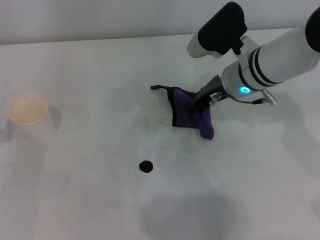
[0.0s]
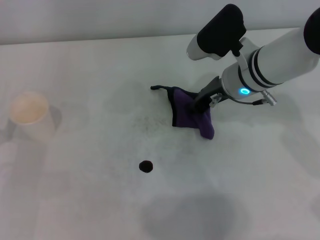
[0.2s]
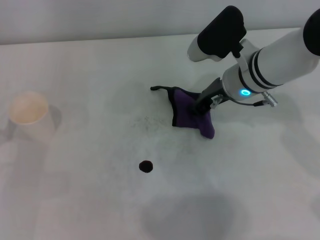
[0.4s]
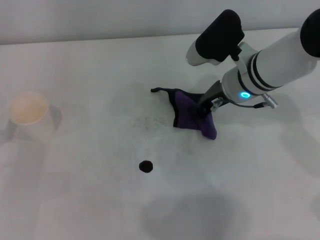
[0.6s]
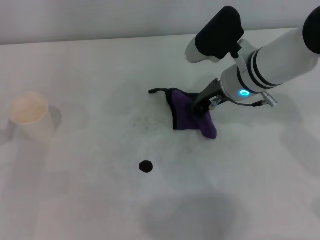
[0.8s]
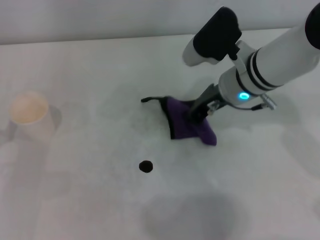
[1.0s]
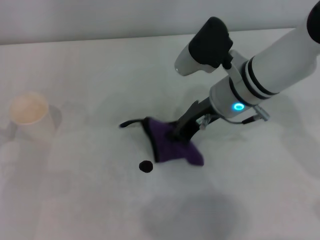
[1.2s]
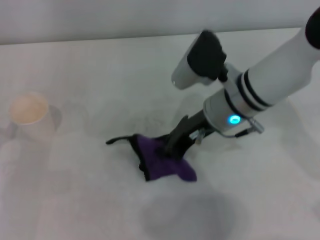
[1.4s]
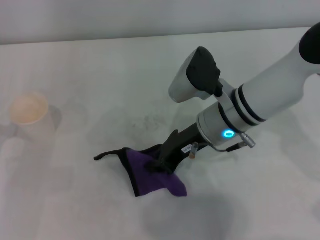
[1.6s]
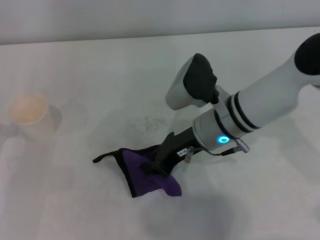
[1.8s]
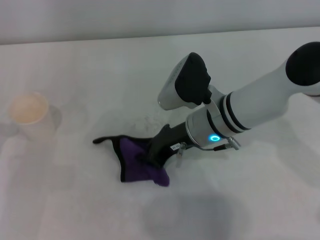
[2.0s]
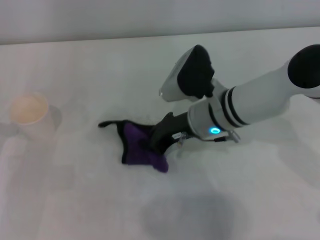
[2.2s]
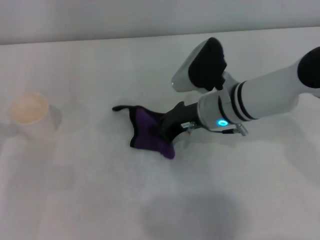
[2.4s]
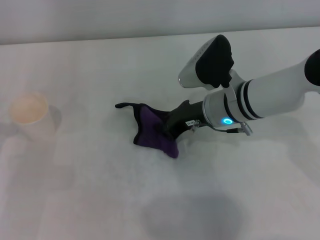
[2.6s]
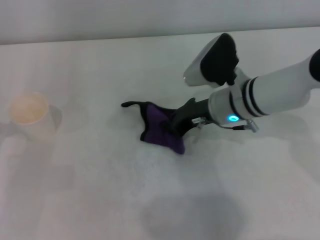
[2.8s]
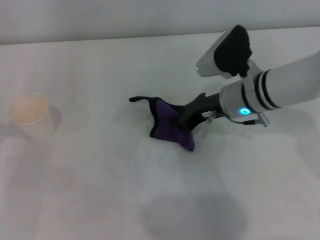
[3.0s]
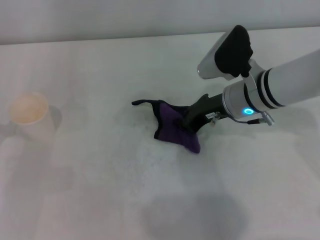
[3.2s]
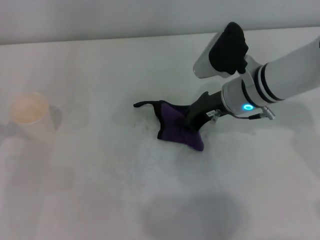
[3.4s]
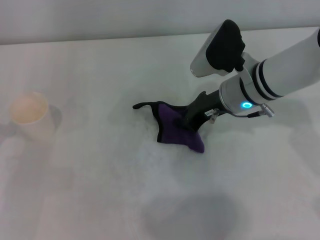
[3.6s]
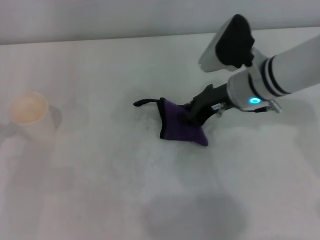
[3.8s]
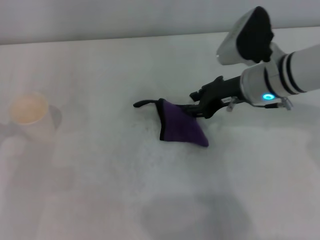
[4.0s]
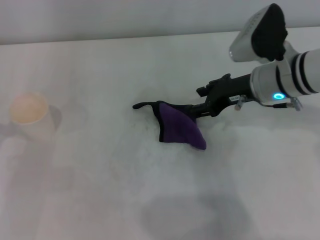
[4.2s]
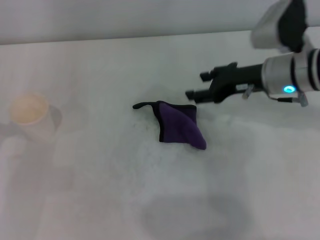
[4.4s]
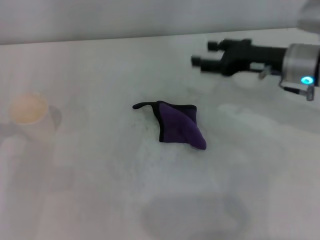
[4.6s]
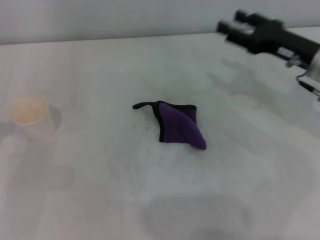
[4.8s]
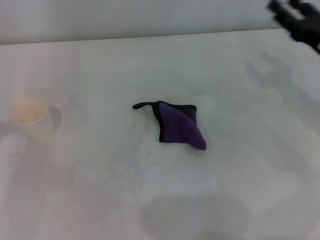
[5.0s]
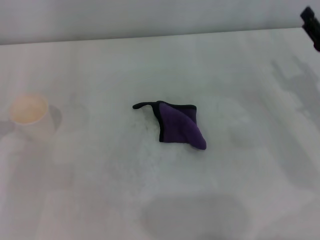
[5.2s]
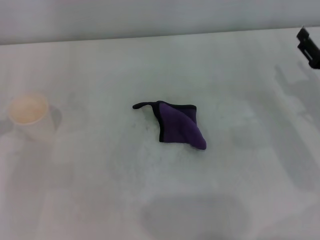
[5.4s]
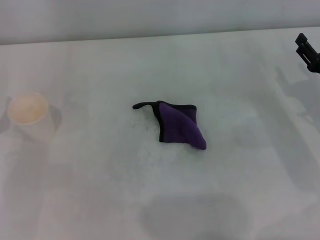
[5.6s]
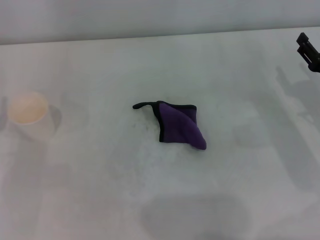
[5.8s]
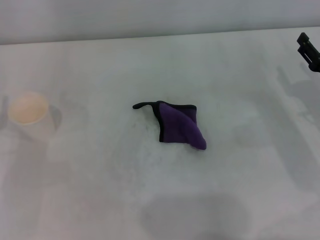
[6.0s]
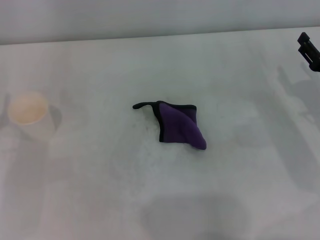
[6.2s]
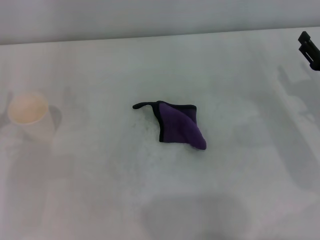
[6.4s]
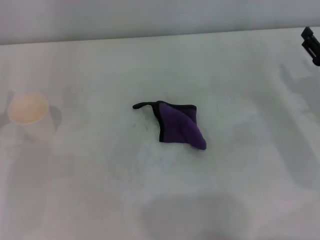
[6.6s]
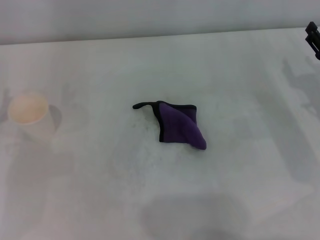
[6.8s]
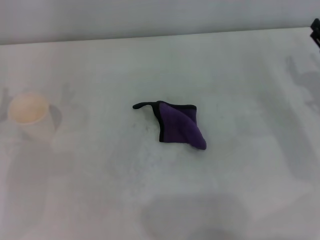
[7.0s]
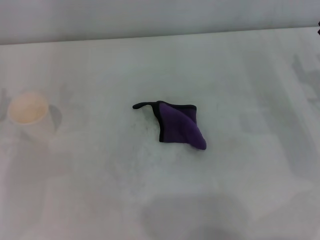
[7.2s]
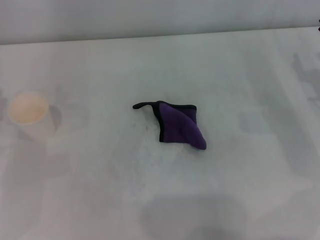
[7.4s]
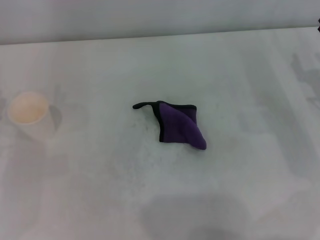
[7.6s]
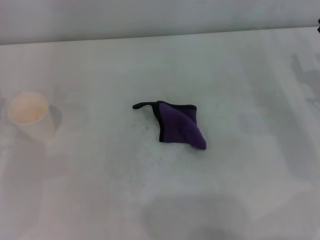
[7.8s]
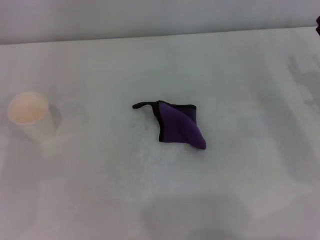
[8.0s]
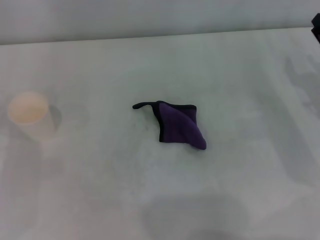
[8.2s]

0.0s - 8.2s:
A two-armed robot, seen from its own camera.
Step, 0.6s - 3.2s: Wipe the stains off the table with the right gripper.
Step, 3.4s - 3.8s: Place the rag on the table with the right gripper.
0.0s - 1.6s: The right gripper shifts roughly 5 cm backward.
1.6s - 3.2s: The right gripper moves about 5 cm.
3.2s - 5.0s: The right gripper travels to the right by some 15 cm, and opens up.
5.0s - 6.6s: The right gripper ends up some 5 cm from where it was.

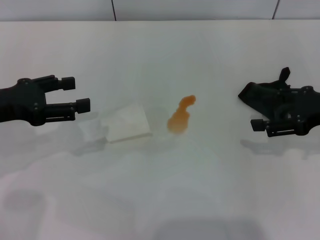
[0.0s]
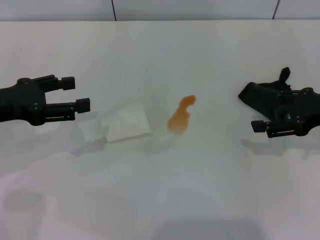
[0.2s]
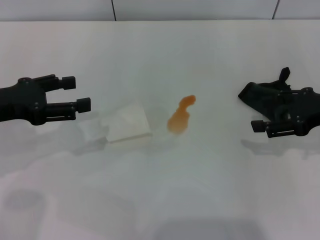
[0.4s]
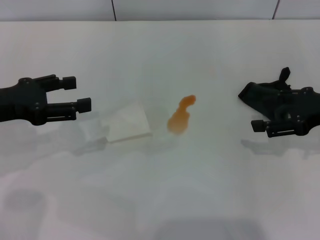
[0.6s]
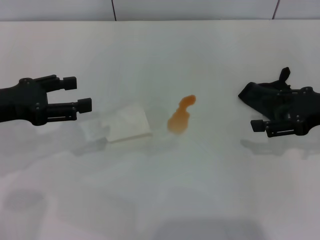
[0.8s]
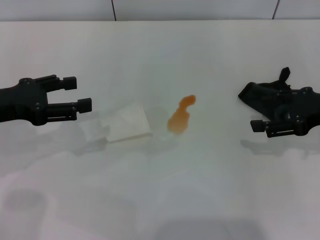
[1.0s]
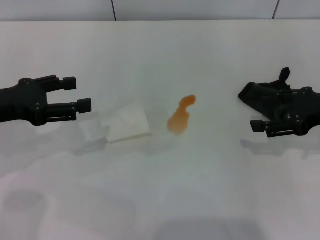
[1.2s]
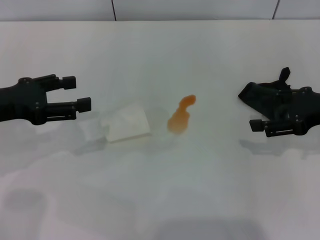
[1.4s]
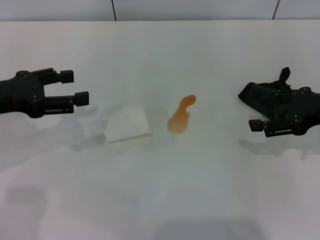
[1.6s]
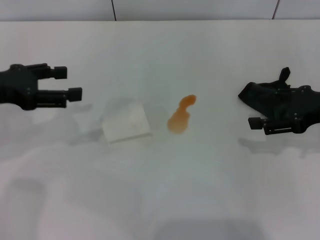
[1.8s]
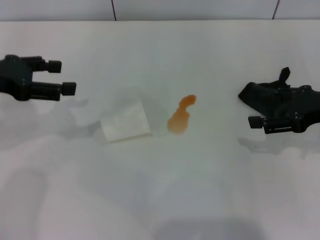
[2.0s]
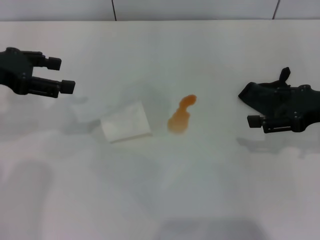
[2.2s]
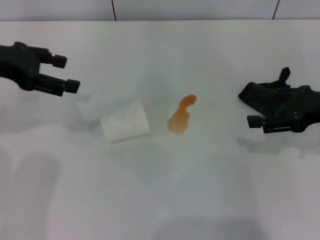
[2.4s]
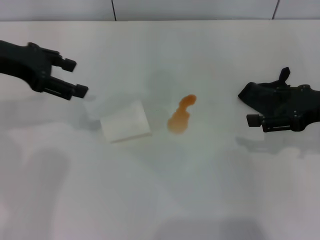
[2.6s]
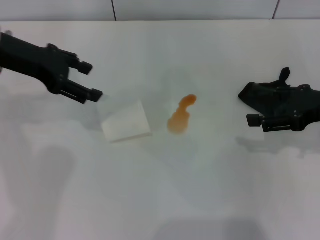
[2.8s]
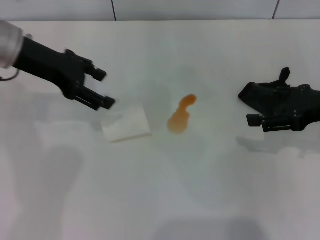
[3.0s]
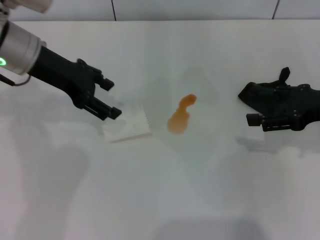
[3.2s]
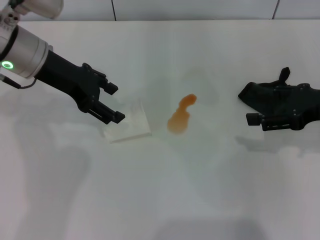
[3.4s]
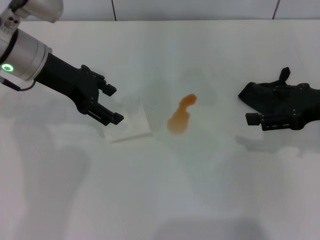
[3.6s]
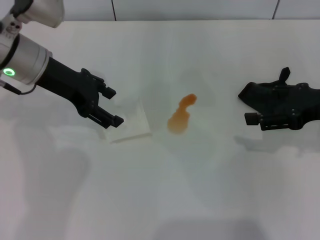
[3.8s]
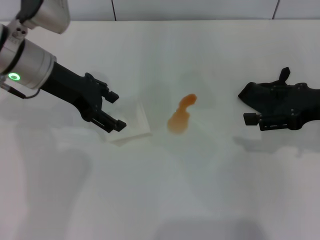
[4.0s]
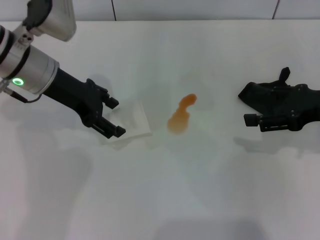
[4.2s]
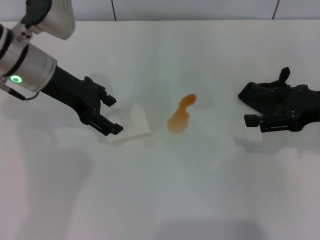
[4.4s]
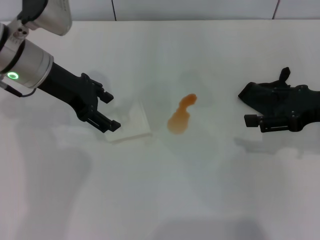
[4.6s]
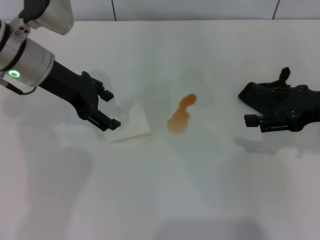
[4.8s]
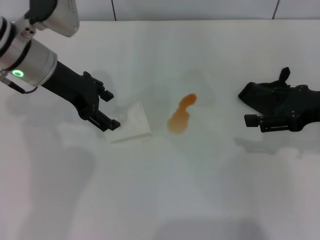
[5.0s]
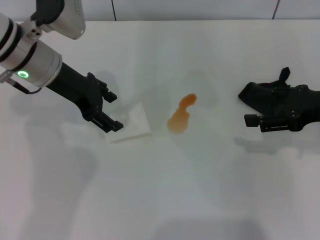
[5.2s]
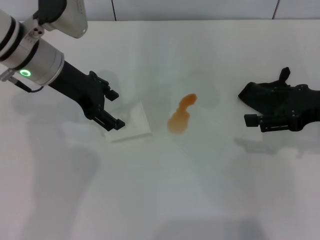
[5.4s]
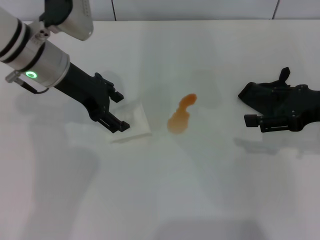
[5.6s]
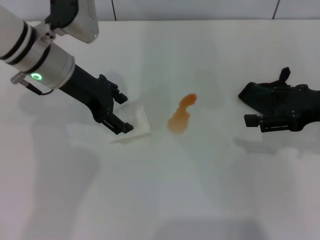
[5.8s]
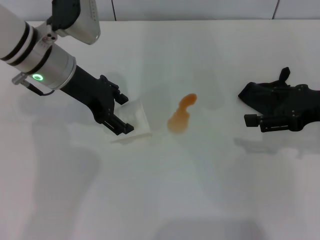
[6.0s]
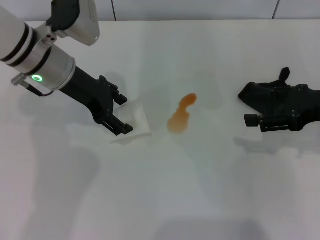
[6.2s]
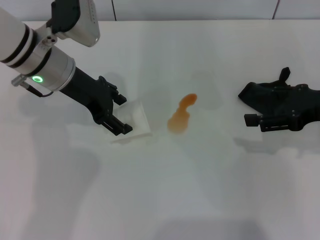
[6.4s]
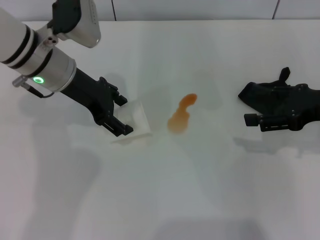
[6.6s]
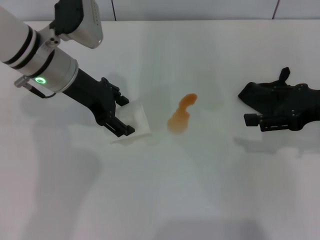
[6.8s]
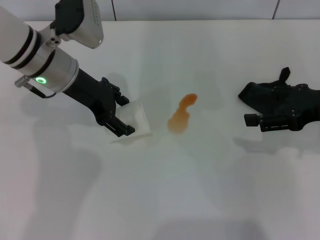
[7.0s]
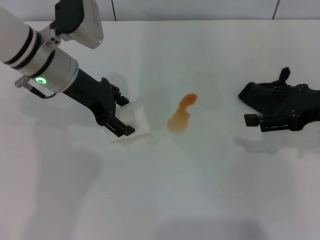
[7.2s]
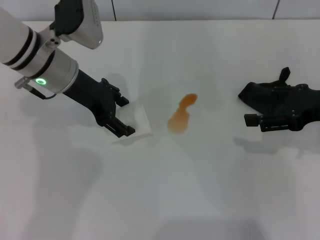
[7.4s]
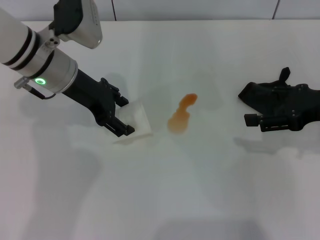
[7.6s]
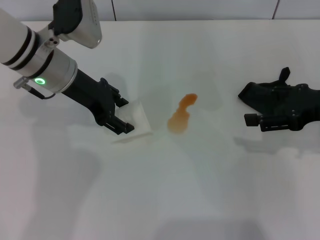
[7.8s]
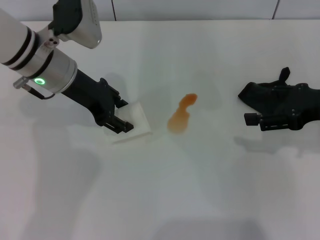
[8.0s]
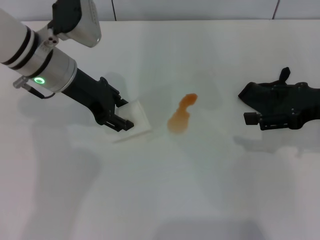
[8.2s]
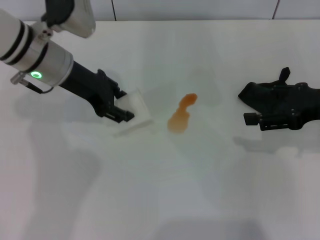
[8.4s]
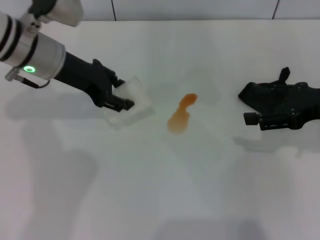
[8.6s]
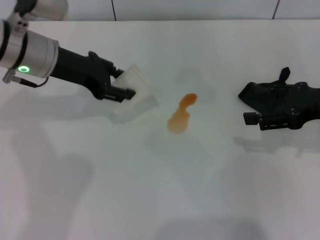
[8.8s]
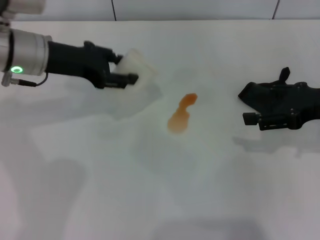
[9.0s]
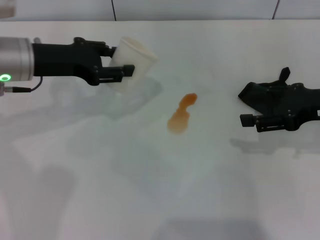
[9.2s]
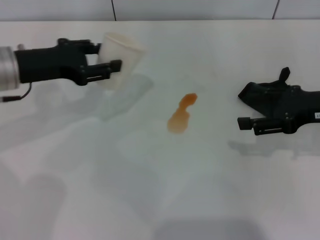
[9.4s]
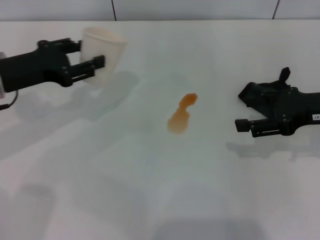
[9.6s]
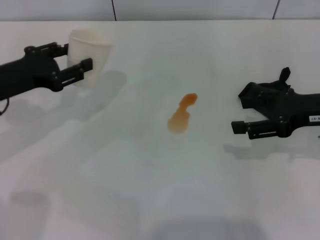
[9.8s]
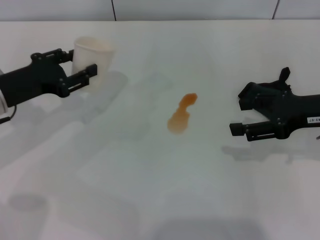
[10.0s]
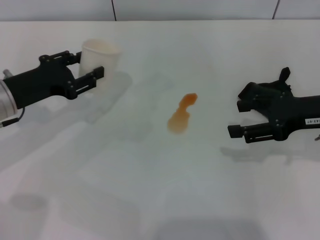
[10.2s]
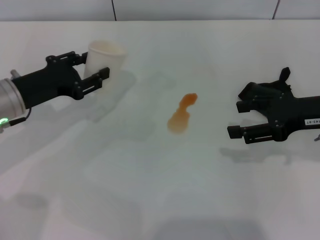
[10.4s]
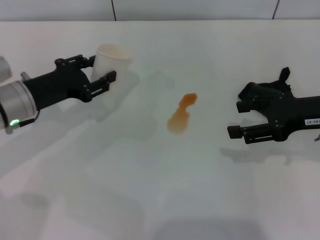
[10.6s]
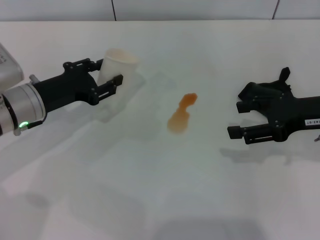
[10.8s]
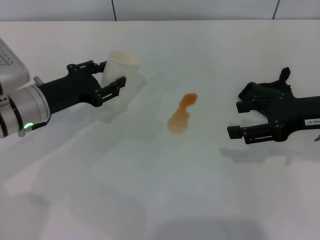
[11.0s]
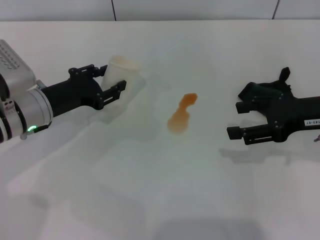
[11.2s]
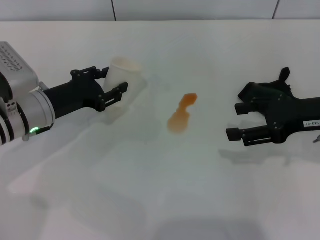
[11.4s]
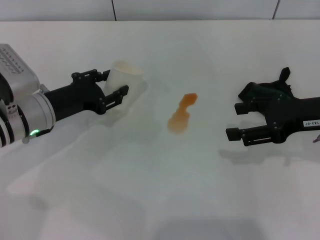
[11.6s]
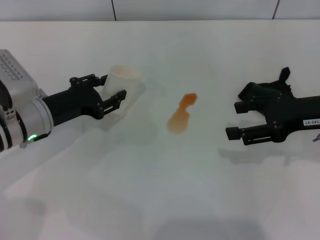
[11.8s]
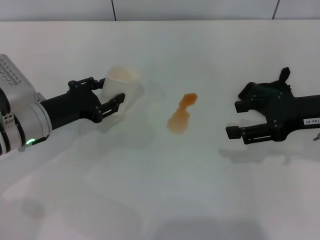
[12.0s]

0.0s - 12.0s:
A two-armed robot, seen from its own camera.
Step, 0.0s - 7.6s: Grasp the paper cup with the left gripper.
0.0s - 1.6s: Neither gripper changes place.
1.6s - 3.0s: The left gripper goes about 10 cm forward and to the right.
3.0s - 4.4s: There are only small adjustments of the grippers.
4.4s - 6.0s: There are only small adjustments of the grippers.
6.0s - 7.6s: Both grippers stay about where they are.
7.6s - 9.0s: The left gripper closes.
9.0s - 10.4s: The left gripper shifts approximately 10 cm downward and backward.
10.4s - 12.0s: The grippers stay close to where they were, moving slightly.

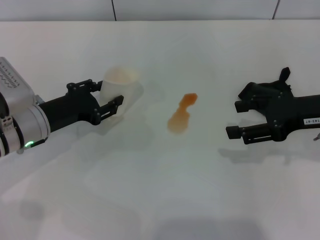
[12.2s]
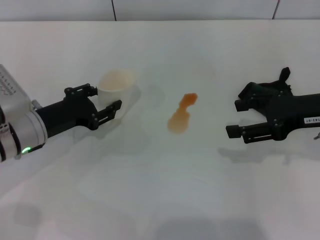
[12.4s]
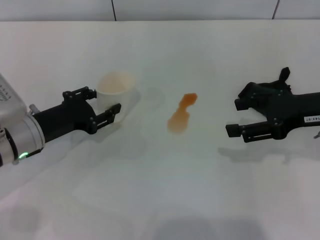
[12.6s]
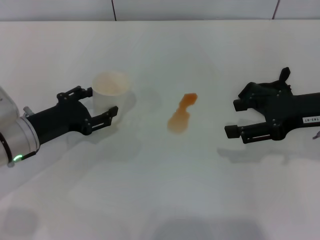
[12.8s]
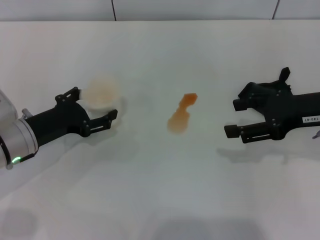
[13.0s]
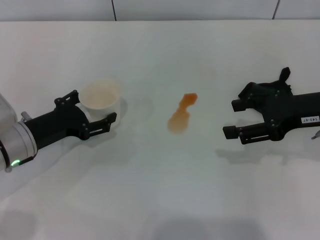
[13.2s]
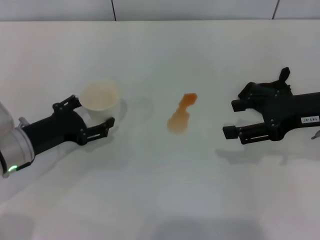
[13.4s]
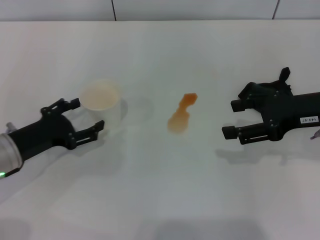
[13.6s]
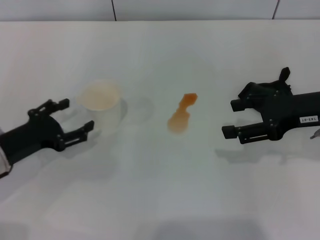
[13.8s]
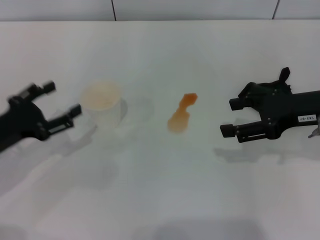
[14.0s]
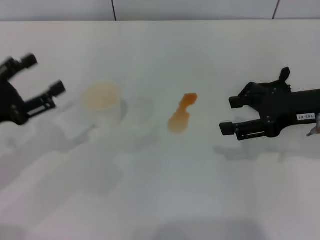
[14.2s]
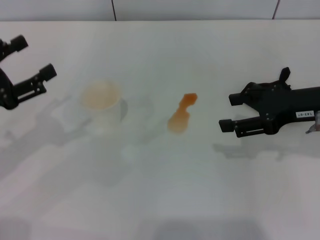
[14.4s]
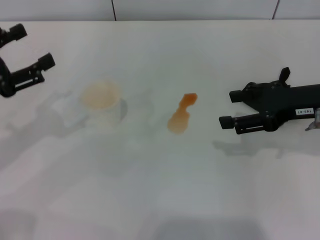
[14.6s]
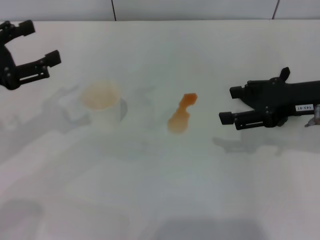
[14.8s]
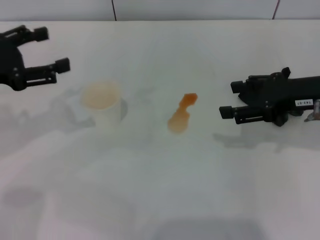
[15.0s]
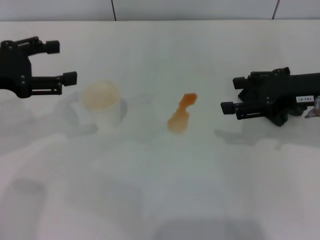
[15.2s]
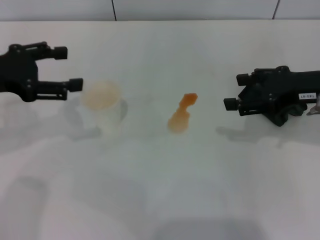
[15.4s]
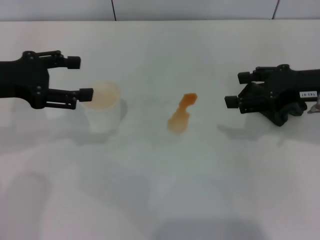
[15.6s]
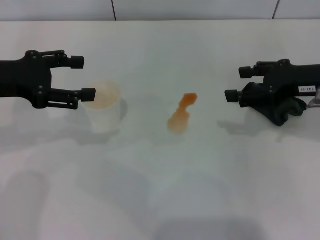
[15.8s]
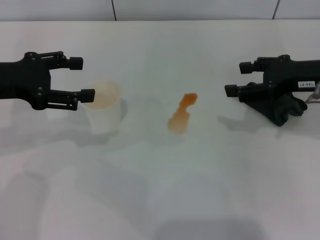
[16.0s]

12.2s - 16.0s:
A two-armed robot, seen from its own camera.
12.2s - 13.4s: The left gripper opens up.
13.4s - 14.8s: The left gripper shifts approximately 15 cm upward and to the left.
